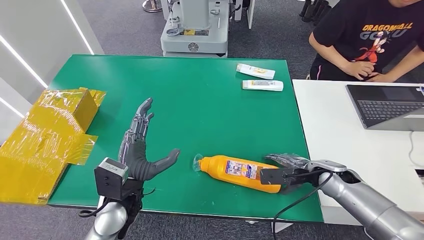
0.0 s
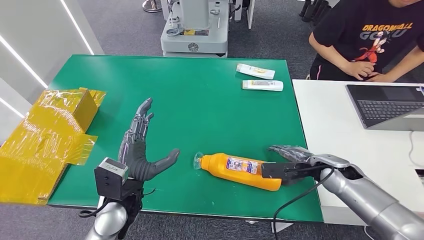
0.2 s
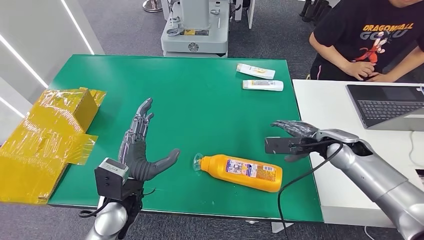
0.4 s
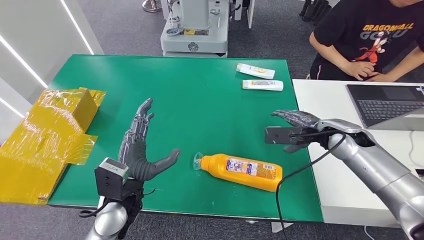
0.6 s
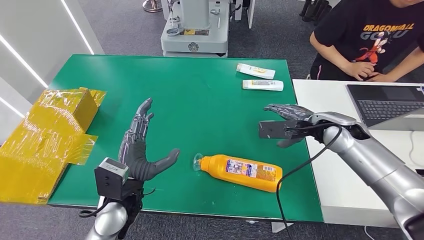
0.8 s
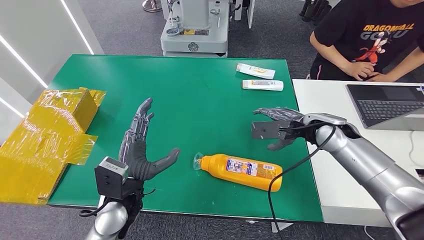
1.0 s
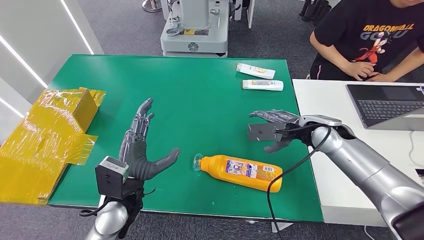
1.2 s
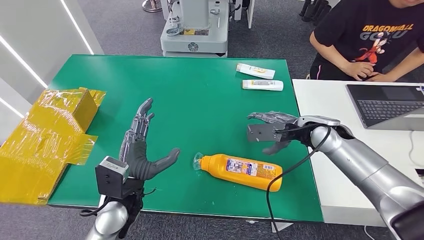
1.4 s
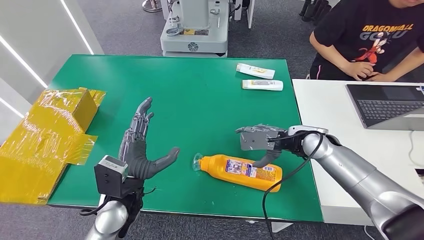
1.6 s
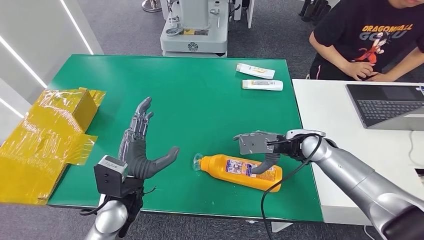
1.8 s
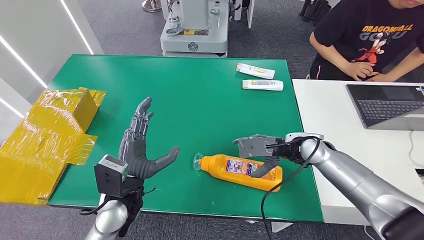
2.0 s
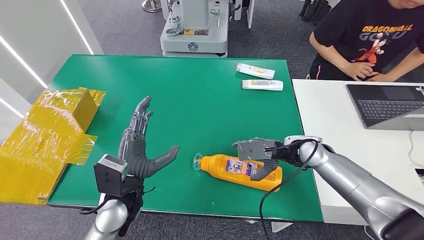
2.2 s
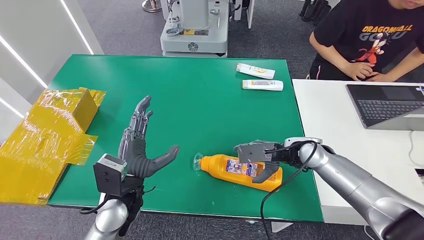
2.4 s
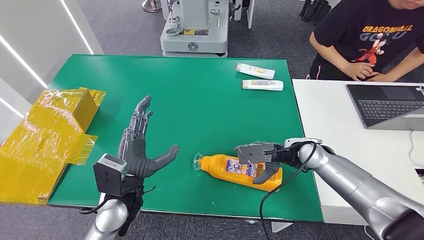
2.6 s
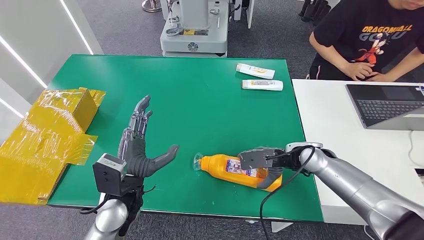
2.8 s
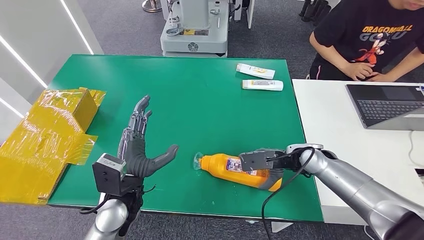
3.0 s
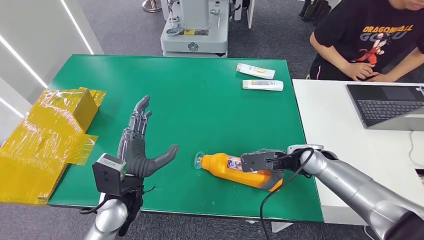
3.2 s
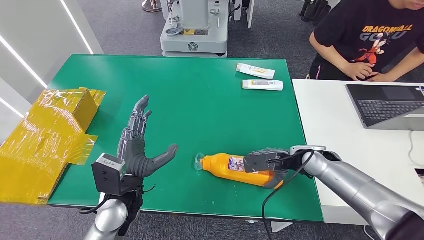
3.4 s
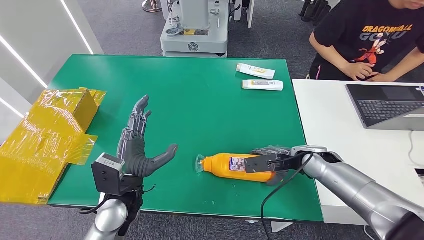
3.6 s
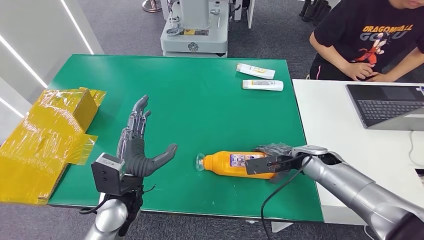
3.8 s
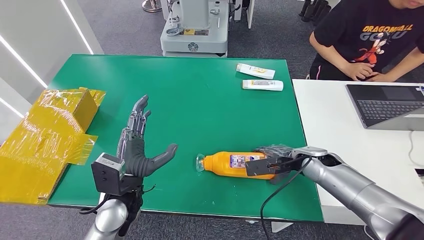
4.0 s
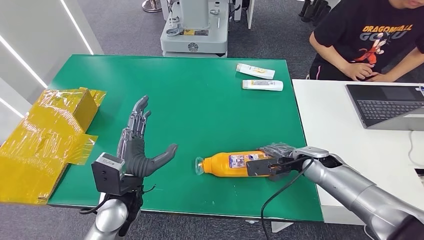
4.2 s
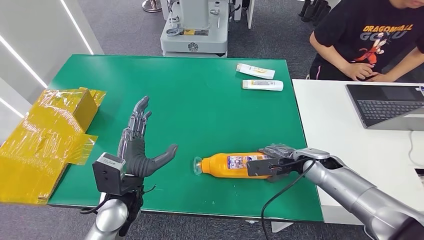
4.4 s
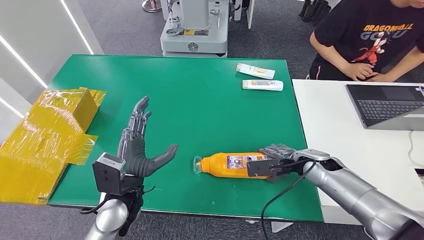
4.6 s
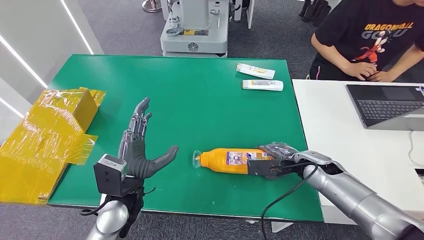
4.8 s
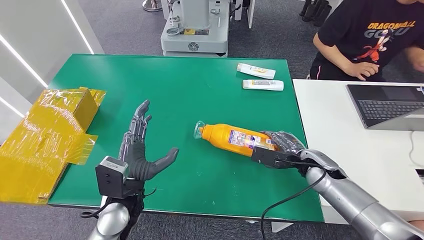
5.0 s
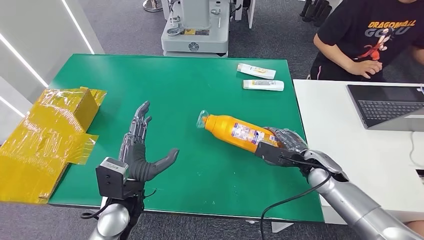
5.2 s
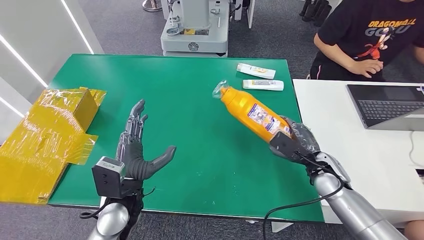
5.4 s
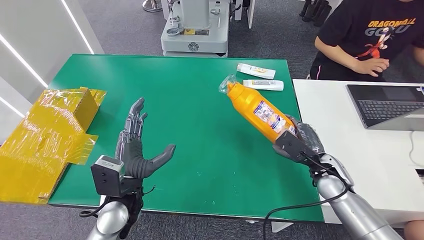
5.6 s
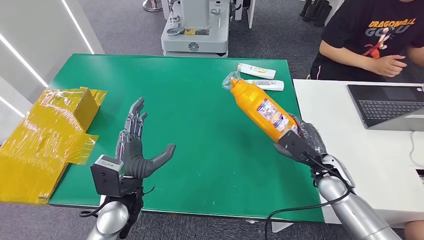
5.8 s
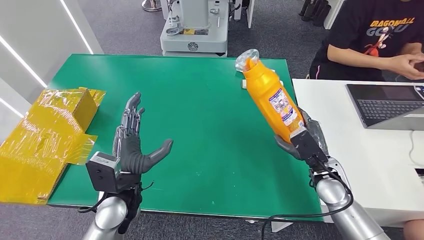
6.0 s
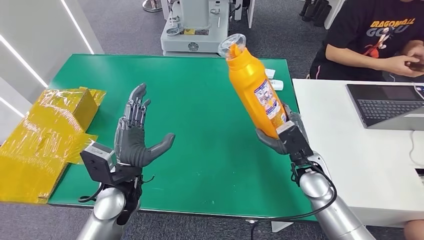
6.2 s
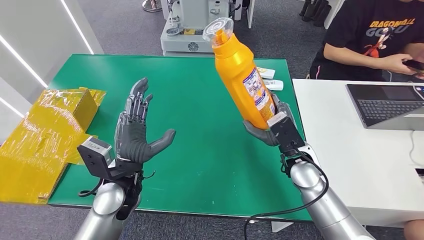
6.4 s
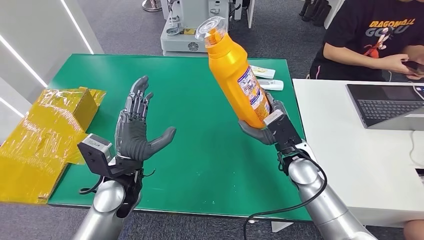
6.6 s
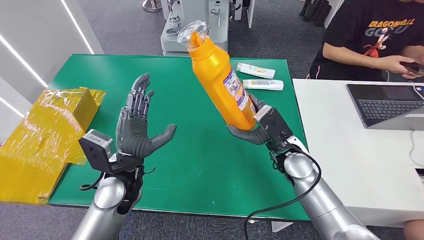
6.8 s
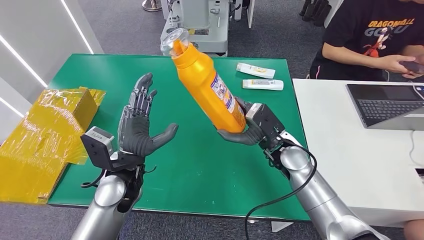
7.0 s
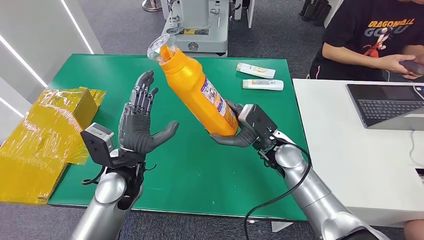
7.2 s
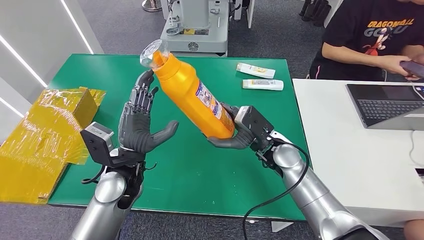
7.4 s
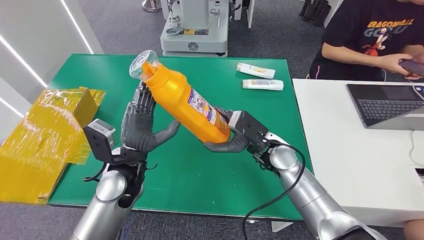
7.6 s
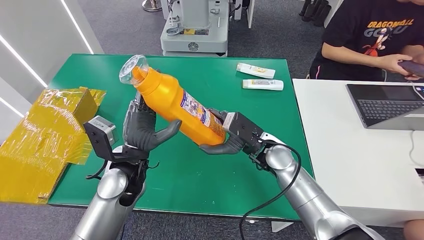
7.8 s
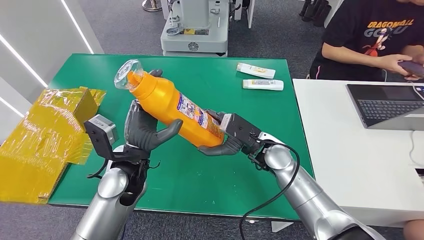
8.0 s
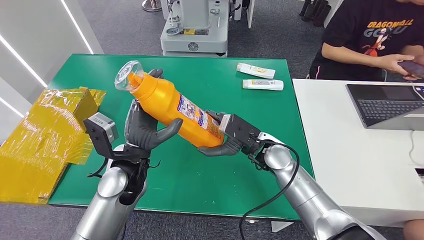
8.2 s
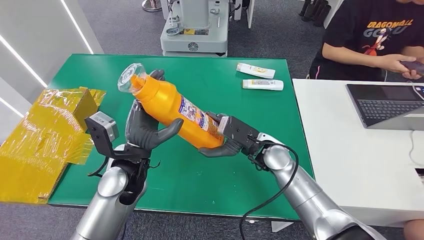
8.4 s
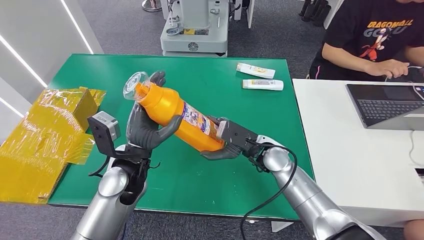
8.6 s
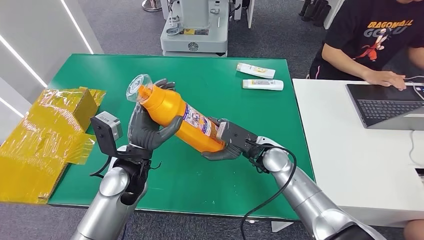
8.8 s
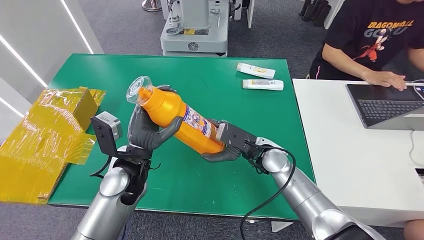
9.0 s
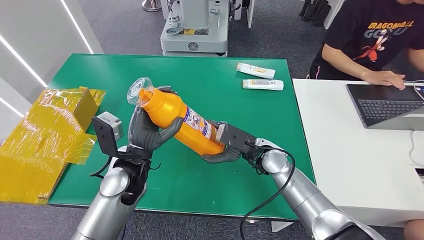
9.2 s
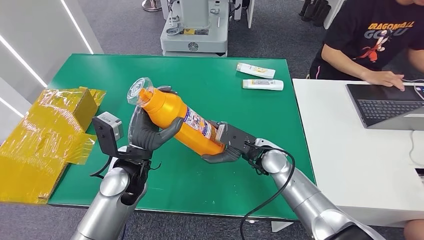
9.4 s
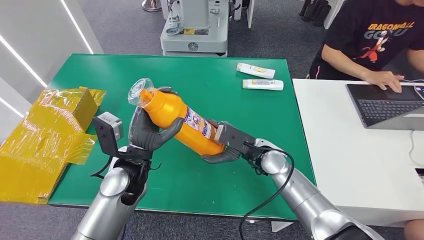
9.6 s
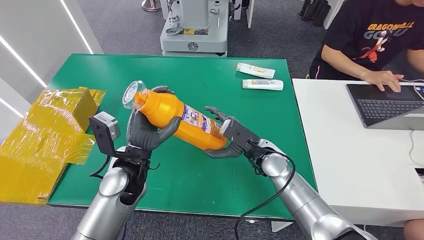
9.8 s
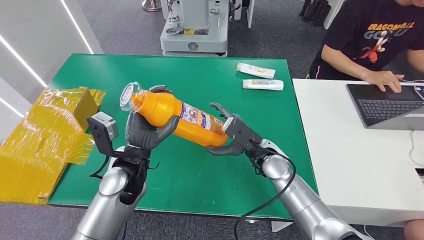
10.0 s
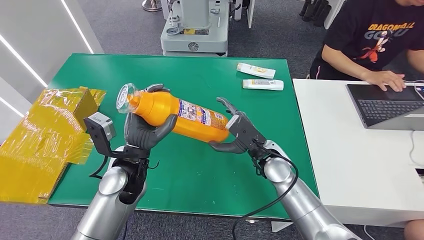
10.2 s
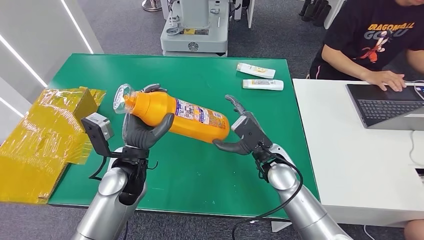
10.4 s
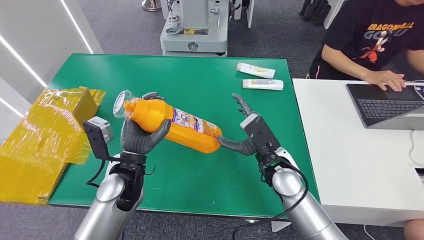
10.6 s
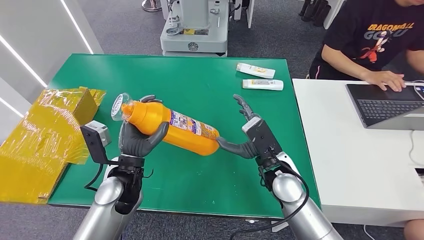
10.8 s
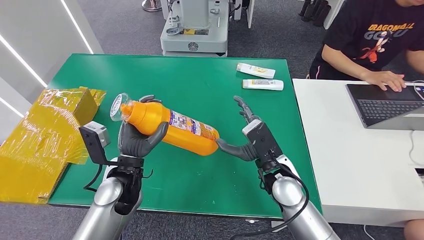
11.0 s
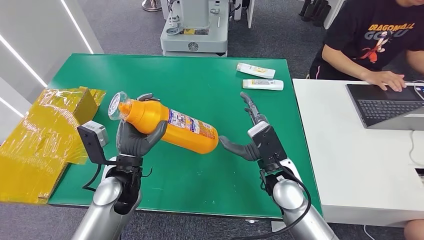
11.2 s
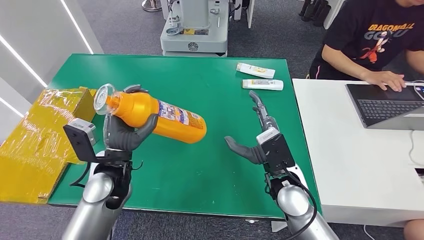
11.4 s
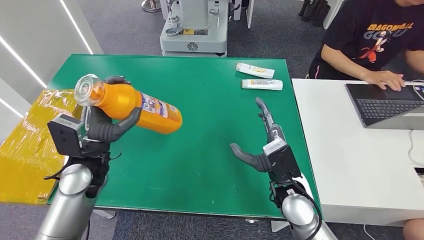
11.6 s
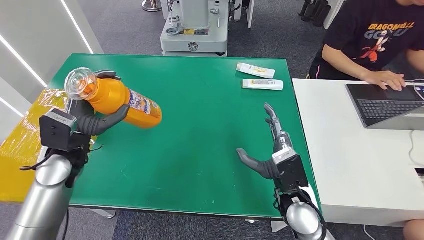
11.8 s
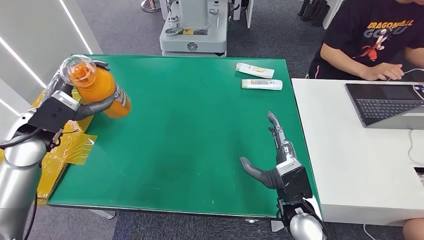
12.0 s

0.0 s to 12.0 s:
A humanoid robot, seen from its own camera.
Step, 0.0 to 5.8 s: Pick up the bottle from the table.
0.0 to 1.6 s: The right hand moves upward, to the left and forward, approximately 10 cm.
1.6 to 3.0 s: The right hand moves some 5 cm.
3.0 to 4.4 s: The hands make only small movements.
4.4 to 6.0 s: The right hand heads backward, covering roughly 5 cm.
7.6 to 9.0 s: The hands move only a little.

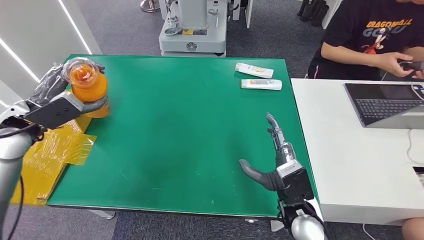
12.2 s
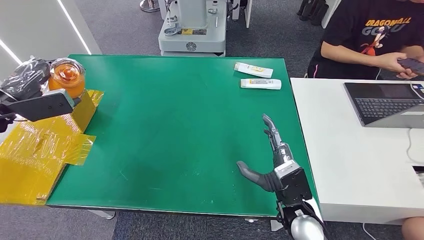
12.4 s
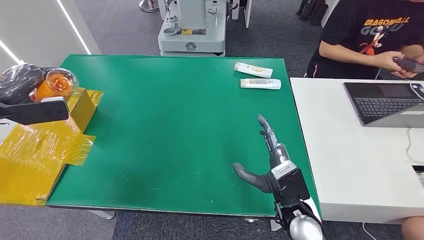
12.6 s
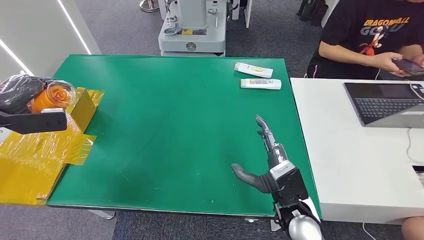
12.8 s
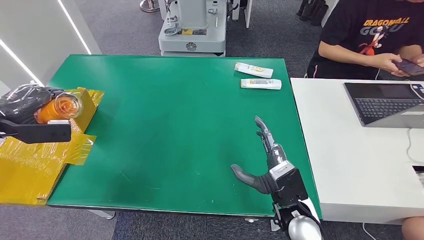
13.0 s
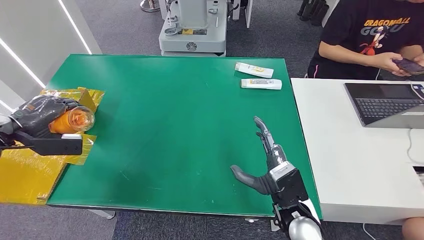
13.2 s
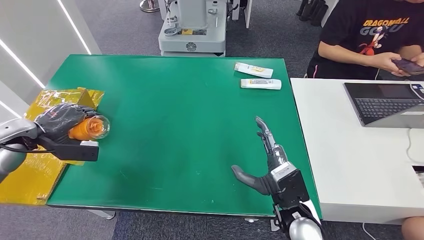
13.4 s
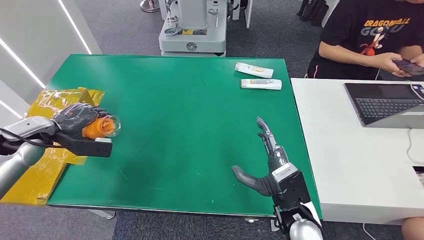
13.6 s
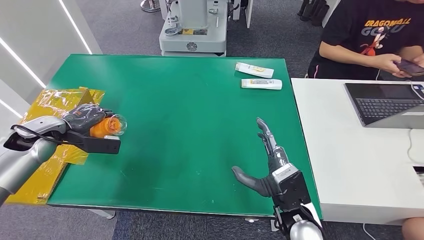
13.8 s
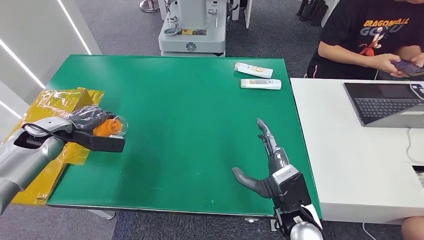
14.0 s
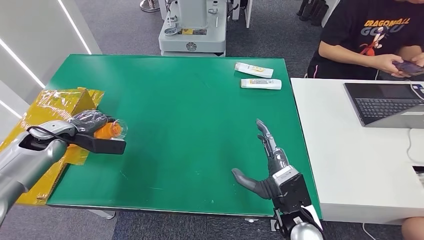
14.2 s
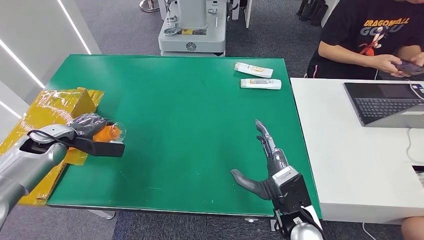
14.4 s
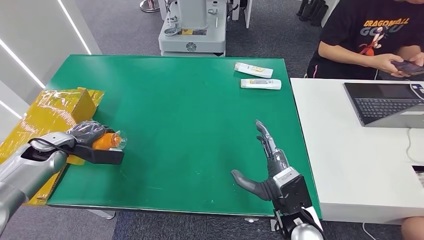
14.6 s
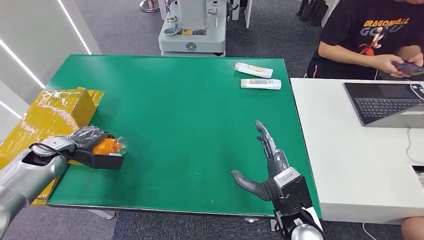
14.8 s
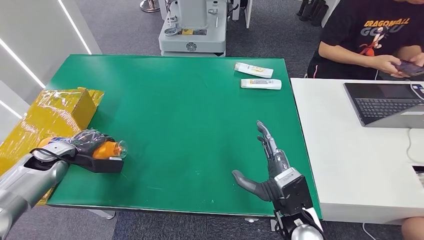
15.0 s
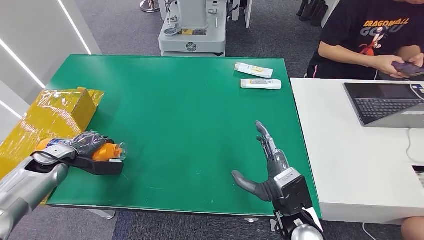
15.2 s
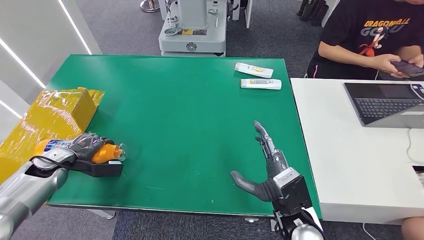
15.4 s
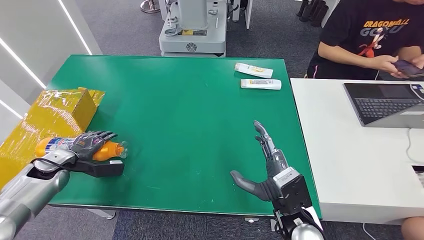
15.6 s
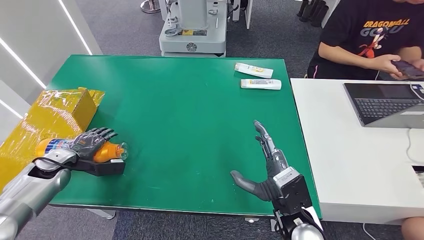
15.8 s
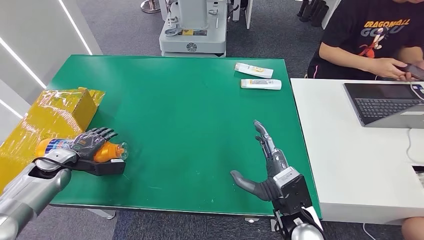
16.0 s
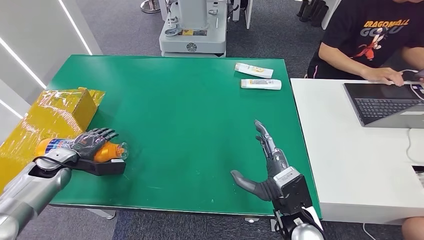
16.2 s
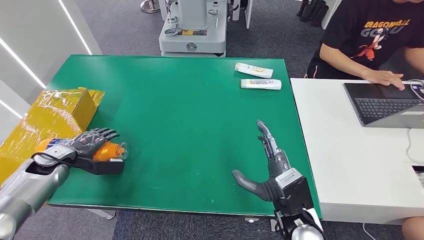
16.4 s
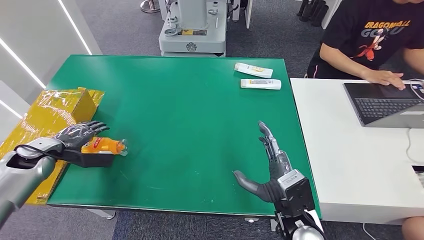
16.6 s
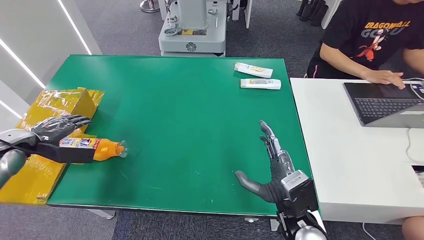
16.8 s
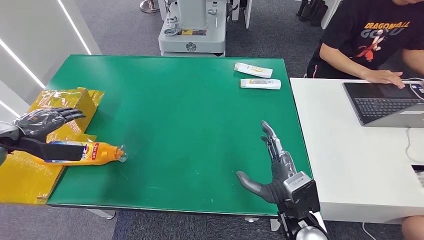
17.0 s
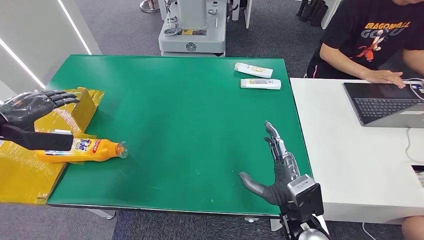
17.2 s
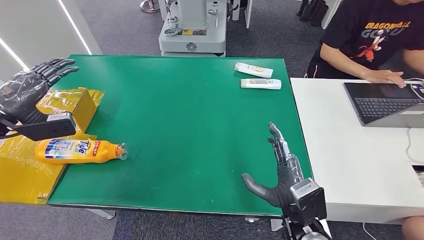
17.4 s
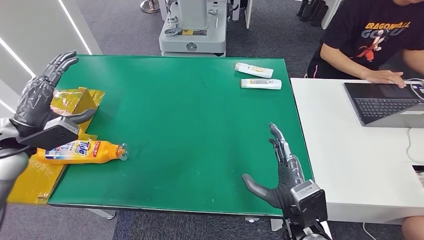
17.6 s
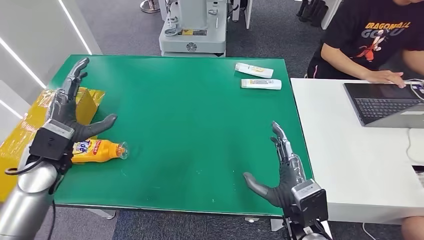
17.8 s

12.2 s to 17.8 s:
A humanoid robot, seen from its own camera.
Step, 12.2 to 17.6 s: Turn the bottle to the front side.
12.2 to 13.6 s: The left hand travels downward and to the left by some 5 cm.
13.6 to 15.0 s: The left hand heads downward, covering about 10 cm.
15.0 to 16.4 s: The hands stay close to where they were, moving slightly.
16.4 to 17.8 s: The left hand travels upward and to the right by roughly 15 cm.
